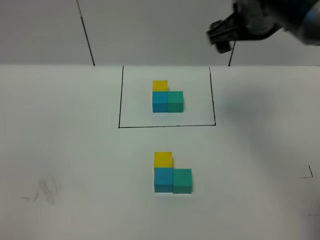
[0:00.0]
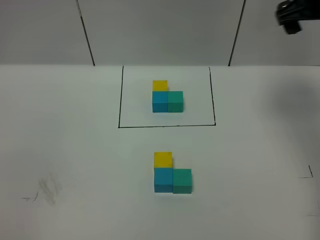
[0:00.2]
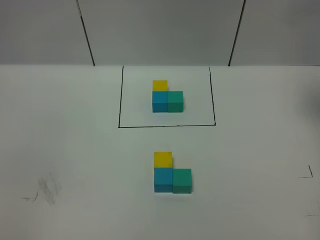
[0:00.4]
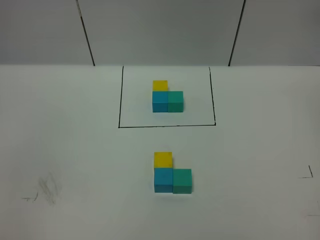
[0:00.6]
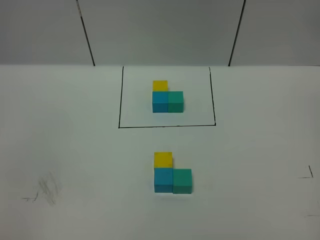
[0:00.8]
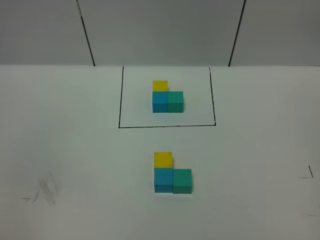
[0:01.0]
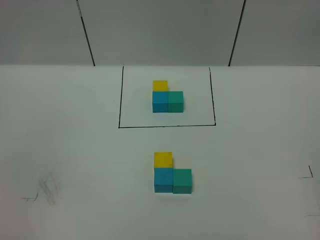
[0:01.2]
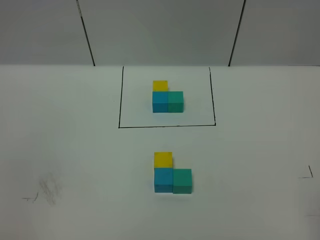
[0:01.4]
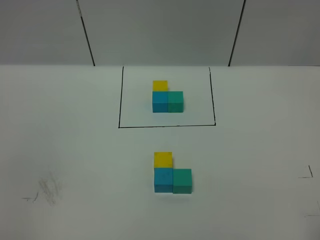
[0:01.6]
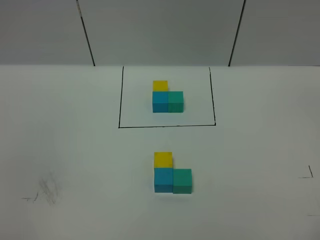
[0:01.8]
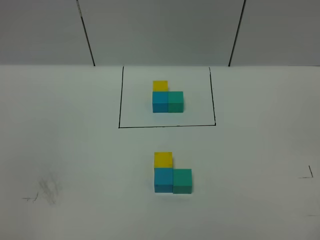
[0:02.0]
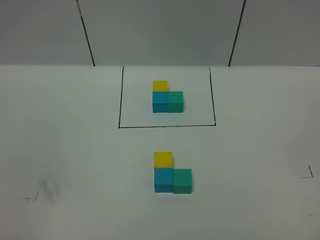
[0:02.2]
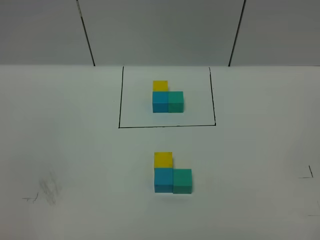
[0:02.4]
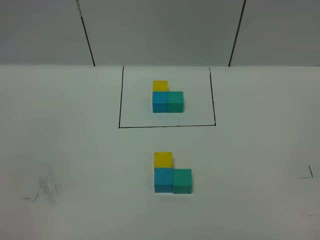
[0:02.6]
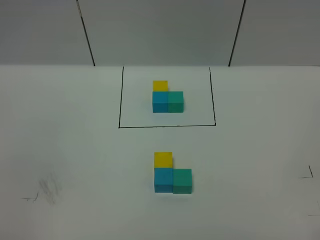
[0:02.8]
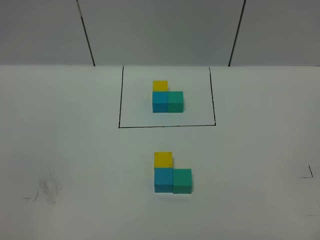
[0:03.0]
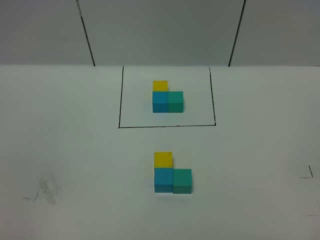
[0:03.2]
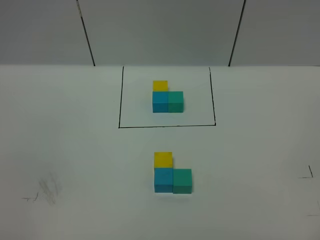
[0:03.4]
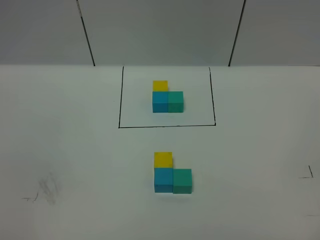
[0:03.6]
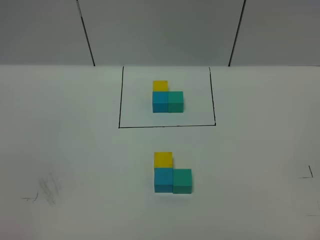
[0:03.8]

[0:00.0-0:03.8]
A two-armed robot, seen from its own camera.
Task of the whole recording: According to the building block template in front, assemble the scattered blocks together.
0:00.0 to 0:01.2: The right gripper shifts about 35 cm backward, to the right and upward.

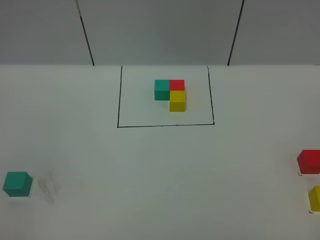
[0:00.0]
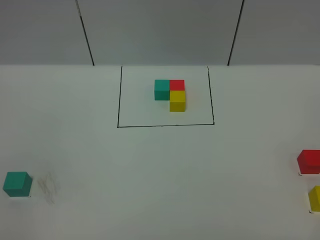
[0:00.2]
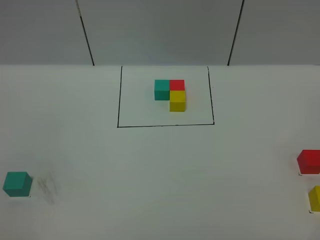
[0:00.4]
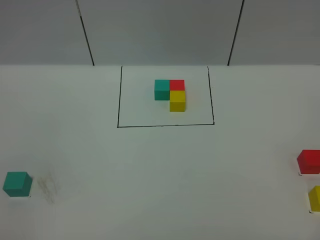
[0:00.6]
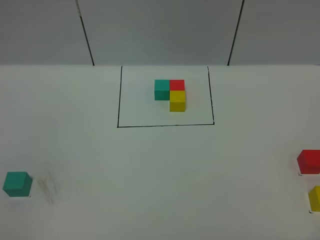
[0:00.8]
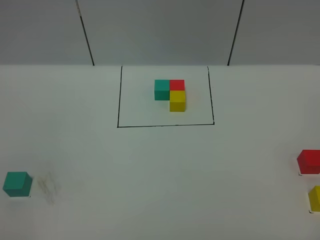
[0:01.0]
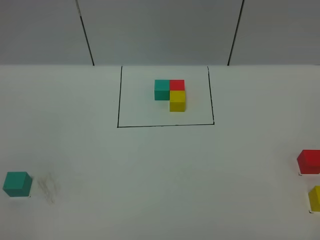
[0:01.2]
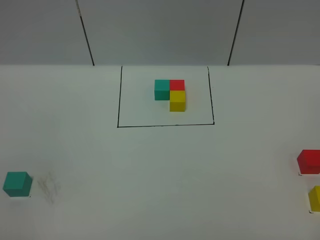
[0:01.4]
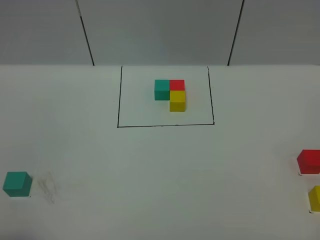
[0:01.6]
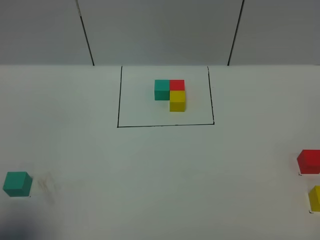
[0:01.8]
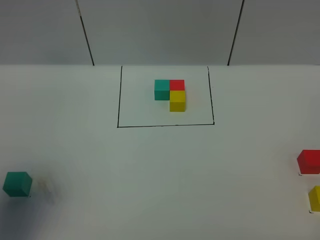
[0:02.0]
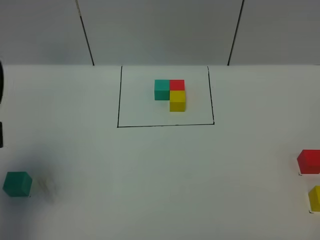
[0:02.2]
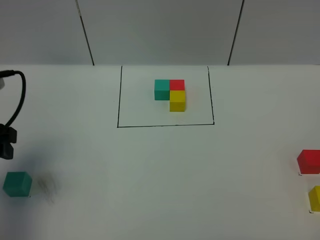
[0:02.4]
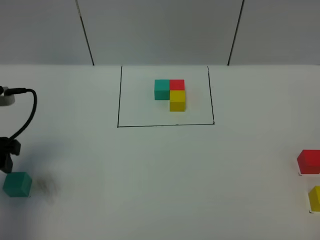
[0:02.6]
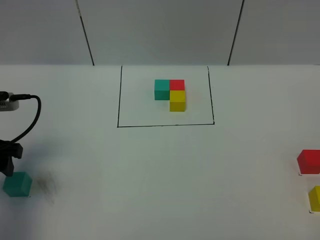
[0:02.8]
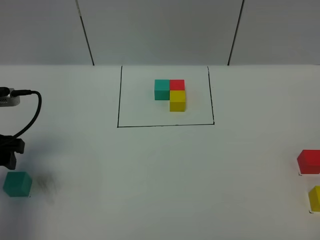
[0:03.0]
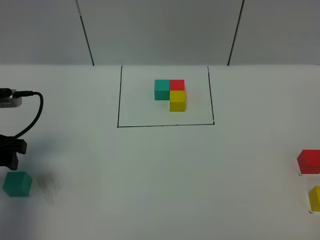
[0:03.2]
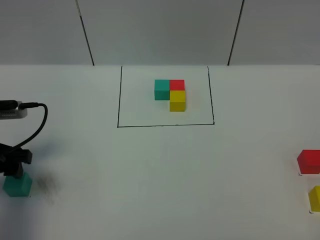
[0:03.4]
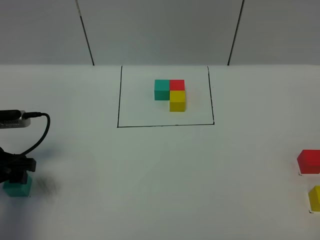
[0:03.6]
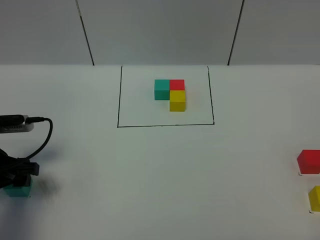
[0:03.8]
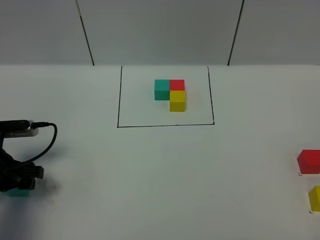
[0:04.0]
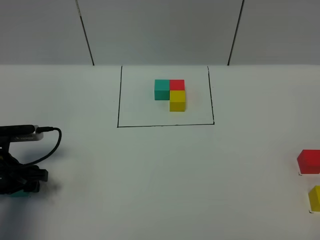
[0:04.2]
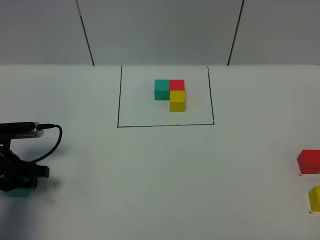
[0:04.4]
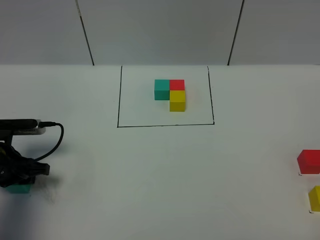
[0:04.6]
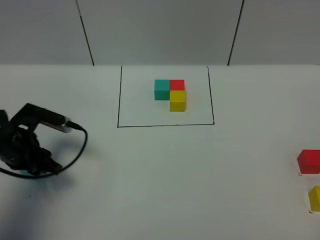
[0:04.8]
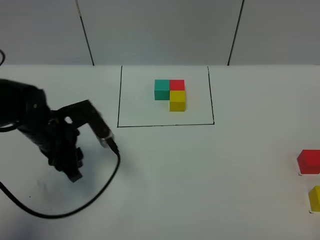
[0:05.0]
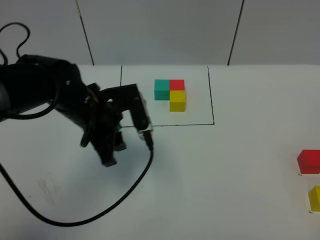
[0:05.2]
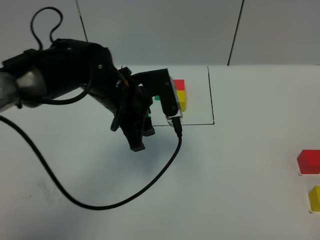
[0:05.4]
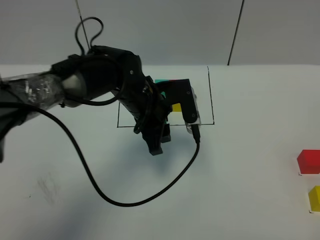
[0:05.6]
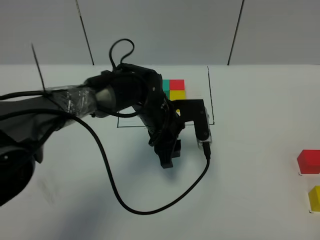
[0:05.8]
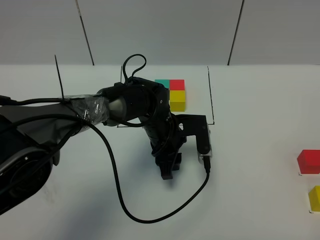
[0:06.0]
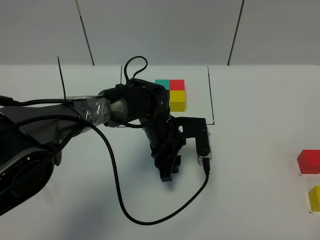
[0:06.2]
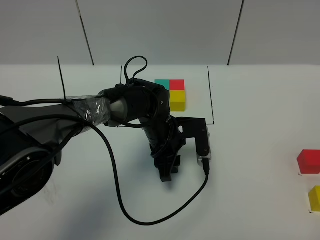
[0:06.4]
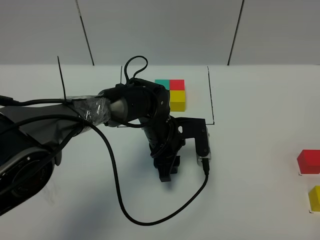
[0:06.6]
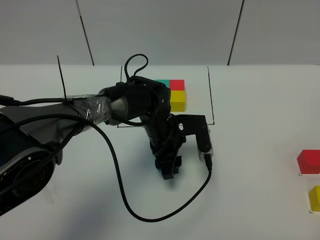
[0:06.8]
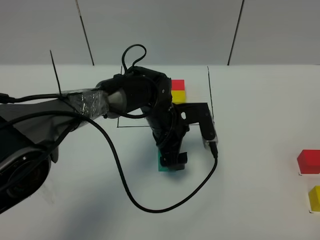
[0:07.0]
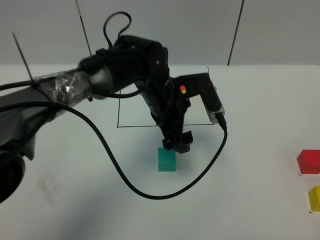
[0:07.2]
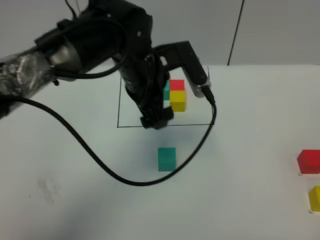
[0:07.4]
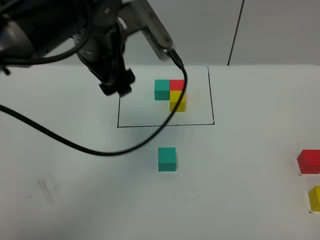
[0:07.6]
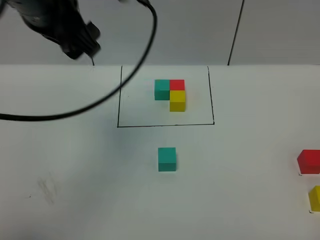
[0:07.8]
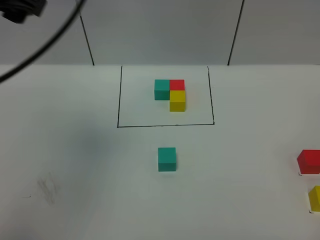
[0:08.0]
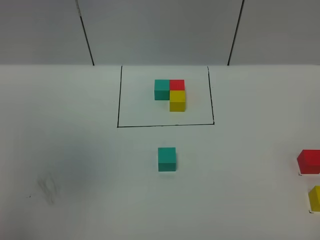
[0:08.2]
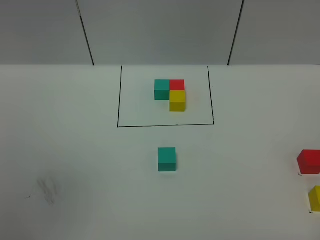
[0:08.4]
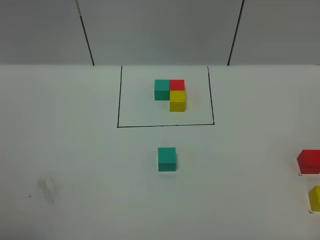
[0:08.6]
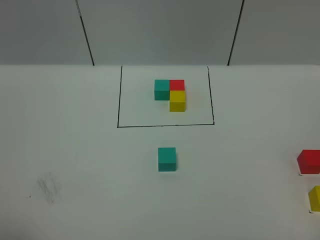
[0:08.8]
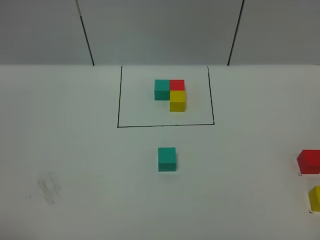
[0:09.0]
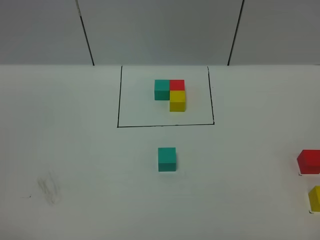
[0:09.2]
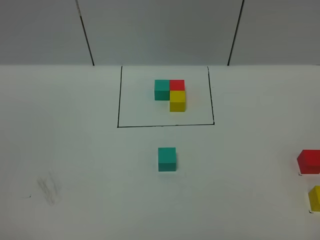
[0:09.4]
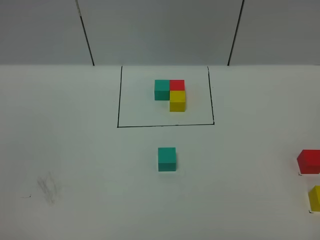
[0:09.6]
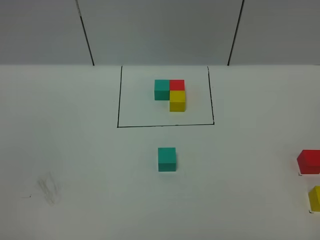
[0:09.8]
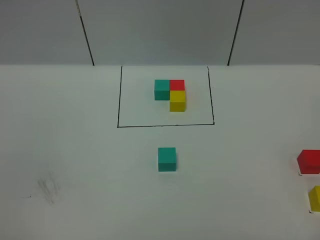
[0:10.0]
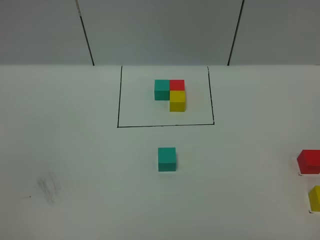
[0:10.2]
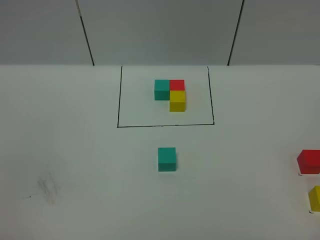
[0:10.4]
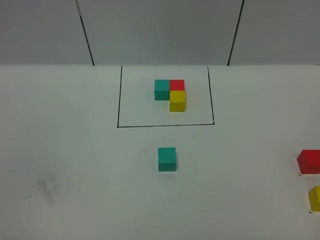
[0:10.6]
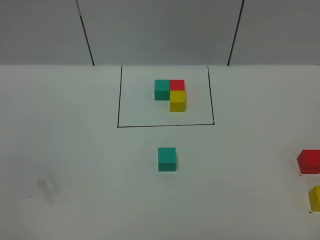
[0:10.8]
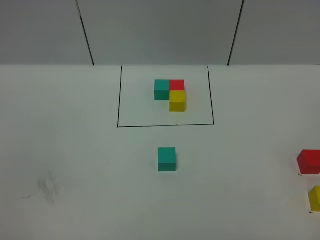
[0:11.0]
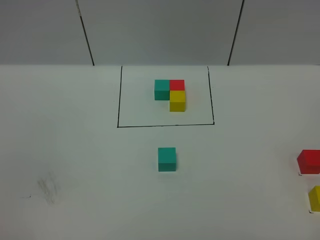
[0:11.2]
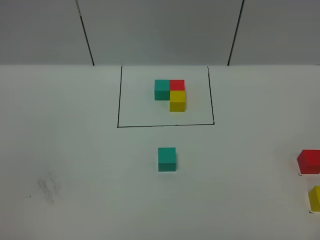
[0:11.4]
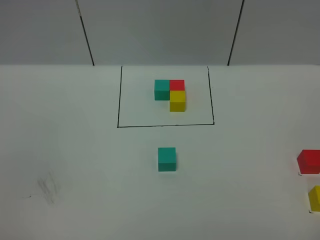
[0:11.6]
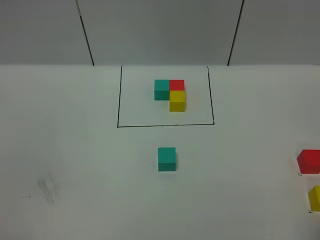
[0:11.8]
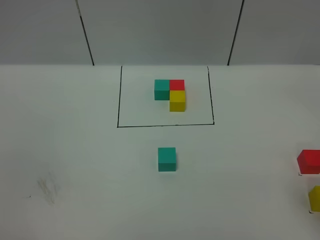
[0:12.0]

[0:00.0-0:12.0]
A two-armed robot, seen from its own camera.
Task of the whole recording: According to the building block template in front, assemble the scattered blocks together.
Step, 0:02.2 to 0:07.0: Put the green cube in the center of the table.
0:01.6 to 0:03.0: The left gripper shifts about 25 cm forward.
0:03.0 to 0:04.4: The left gripper moves downward, about 10 cm, and closes its fingers.
0:04.4 to 0:06.0: The left gripper moves to the right, approximately 30 cm.
0:06.0 to 0:07.6: The left gripper heads upward, covering about 25 cm, and opens.
0:07.6 to 0:09.0: The left gripper shifts approximately 40 cm backward and to the left.

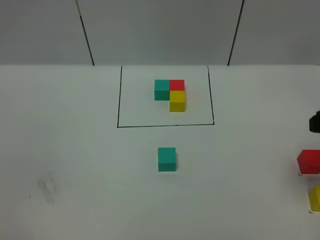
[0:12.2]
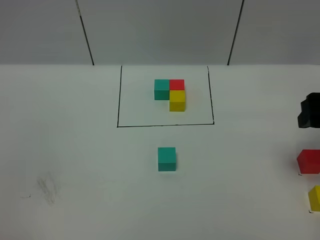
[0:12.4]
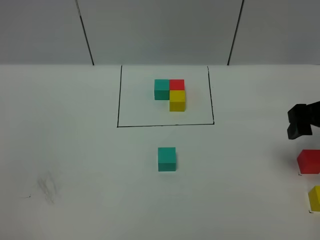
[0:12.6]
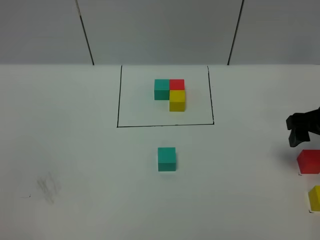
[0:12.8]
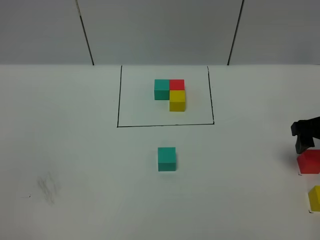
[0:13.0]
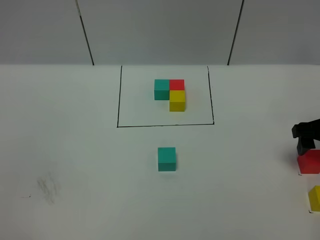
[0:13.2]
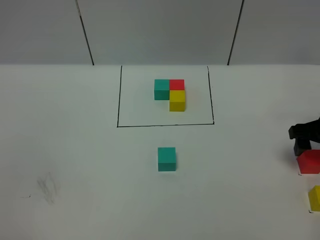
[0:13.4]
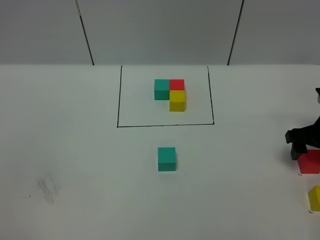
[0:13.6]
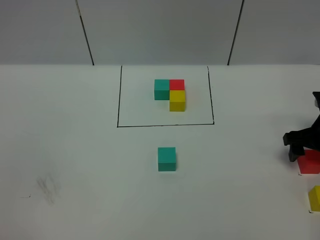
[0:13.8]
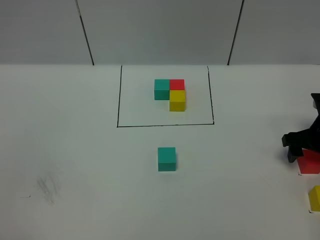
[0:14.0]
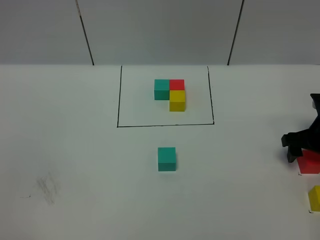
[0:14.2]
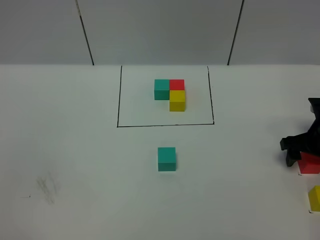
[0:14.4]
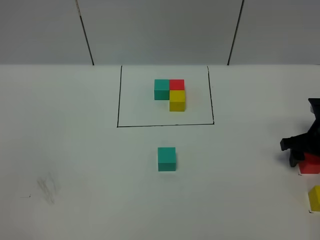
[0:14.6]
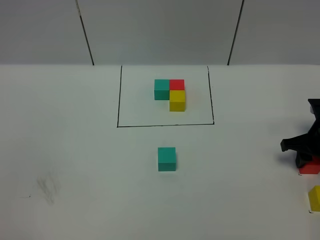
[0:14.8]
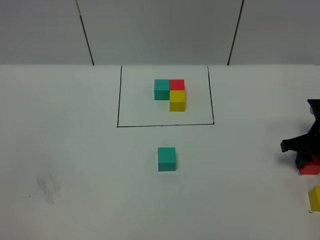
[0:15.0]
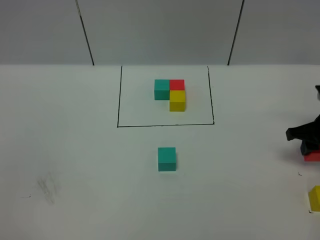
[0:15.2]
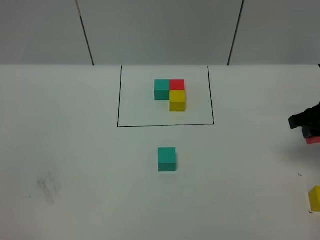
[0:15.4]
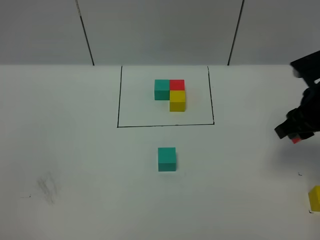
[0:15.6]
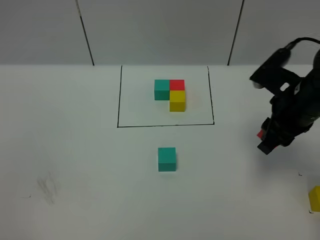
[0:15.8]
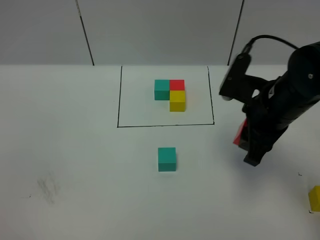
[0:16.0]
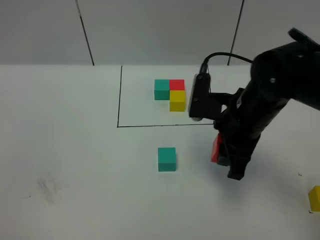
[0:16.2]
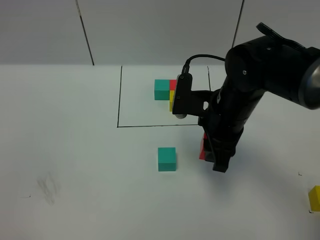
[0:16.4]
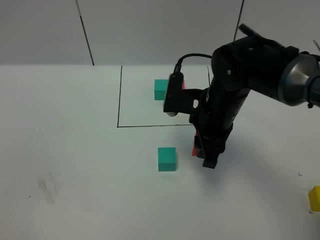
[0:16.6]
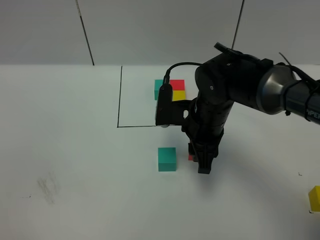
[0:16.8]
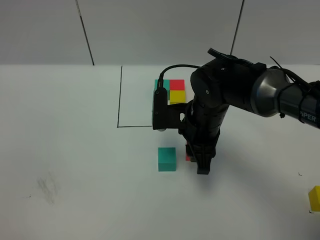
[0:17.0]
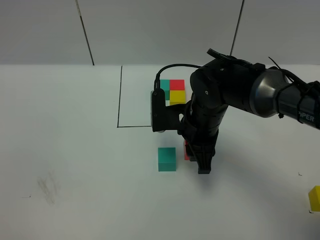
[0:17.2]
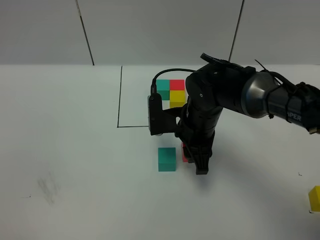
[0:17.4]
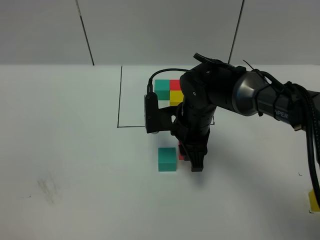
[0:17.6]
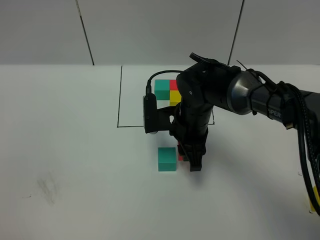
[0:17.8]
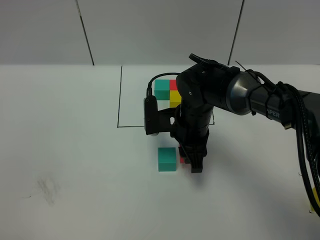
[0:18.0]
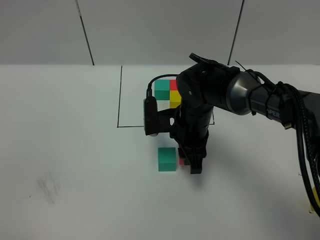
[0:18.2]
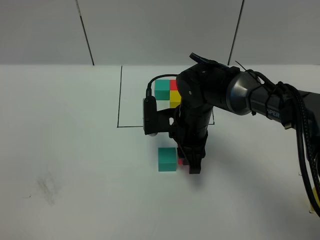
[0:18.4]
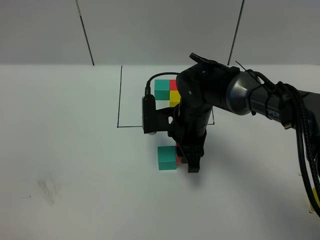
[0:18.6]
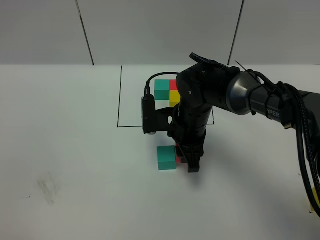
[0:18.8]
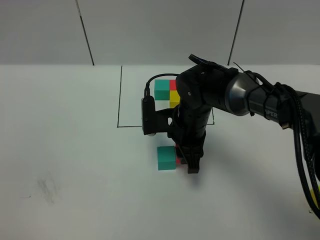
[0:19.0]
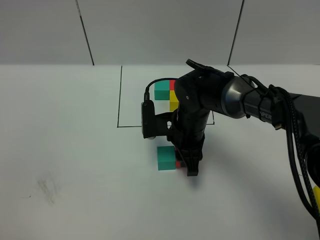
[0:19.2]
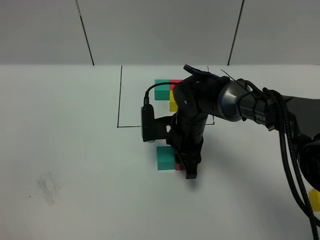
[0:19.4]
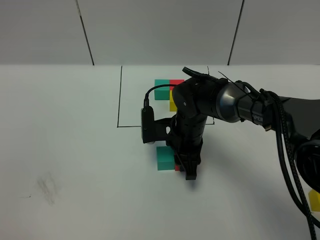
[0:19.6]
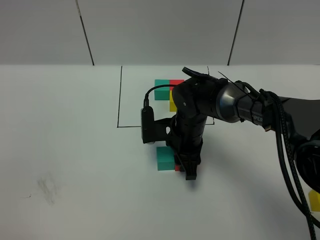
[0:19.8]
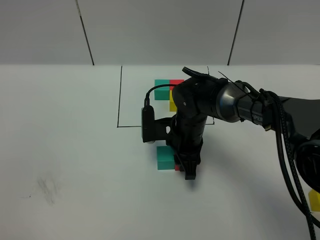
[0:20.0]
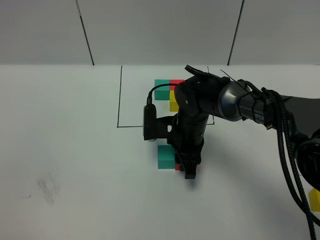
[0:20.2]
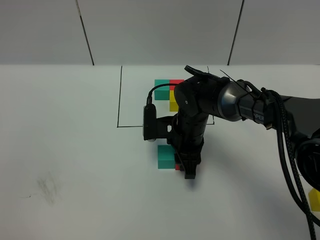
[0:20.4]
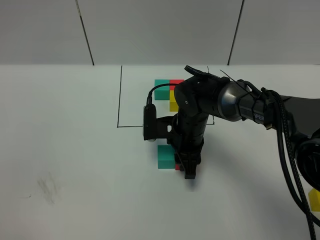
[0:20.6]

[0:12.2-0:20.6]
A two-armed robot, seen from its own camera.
Task of the whole recording: According to the building block template in front, assemble the scattered blocks together.
0:12.2 to 0:13.6: The right gripper shifts about 20 cm downward and forward.
0:13.6 to 0:15.0: The right gripper closes its fingers.
0:15.0 to 0:16.4: The right gripper moves to the left and upward, roughly 25 cm.
0:16.4 to 0:17.8: The right gripper moves downward and to the left, roughly 10 cm.
0:17.8 to 0:20.6: The grippers make only small movements.